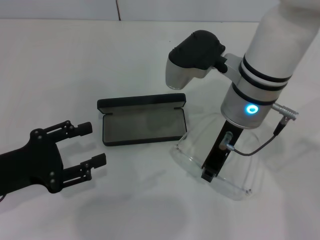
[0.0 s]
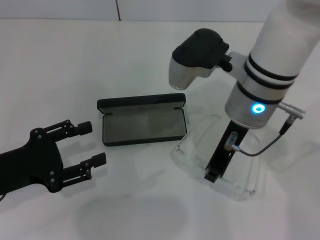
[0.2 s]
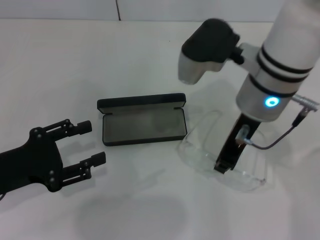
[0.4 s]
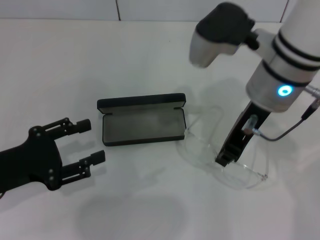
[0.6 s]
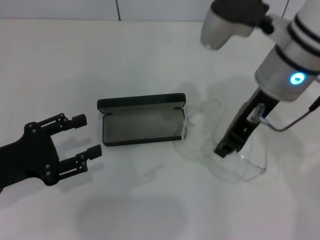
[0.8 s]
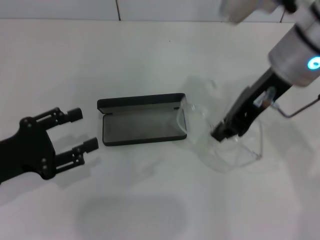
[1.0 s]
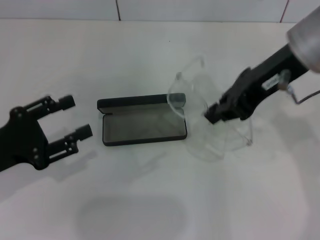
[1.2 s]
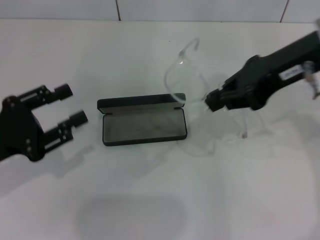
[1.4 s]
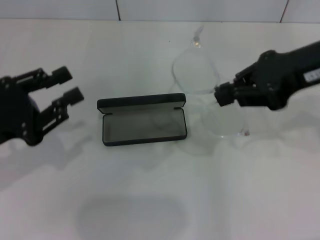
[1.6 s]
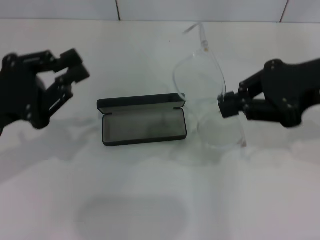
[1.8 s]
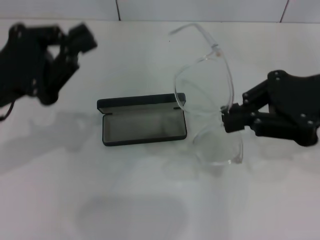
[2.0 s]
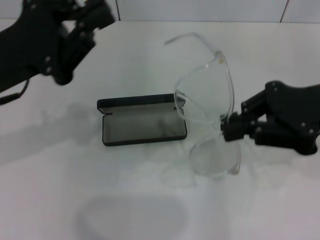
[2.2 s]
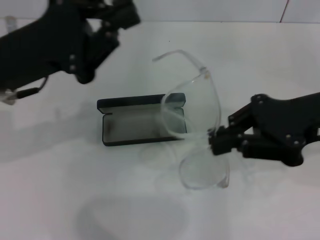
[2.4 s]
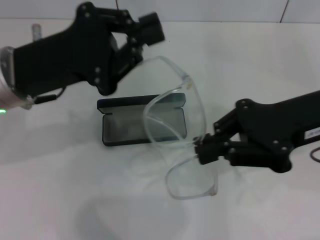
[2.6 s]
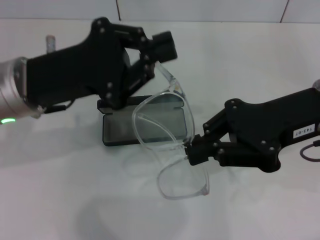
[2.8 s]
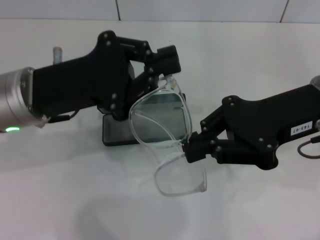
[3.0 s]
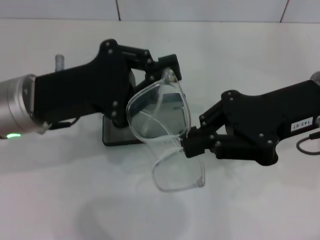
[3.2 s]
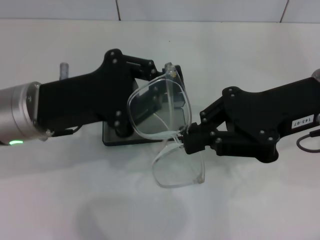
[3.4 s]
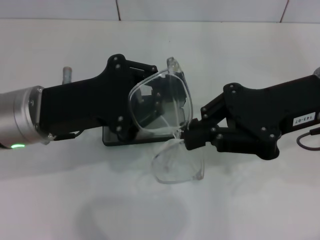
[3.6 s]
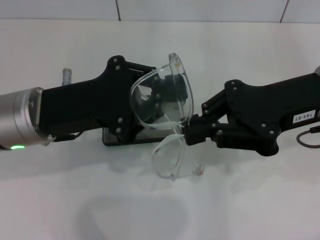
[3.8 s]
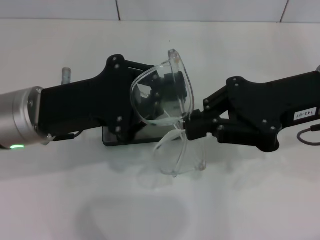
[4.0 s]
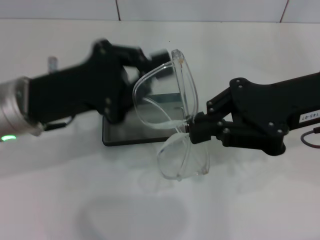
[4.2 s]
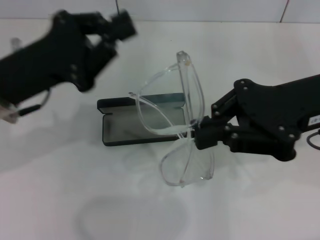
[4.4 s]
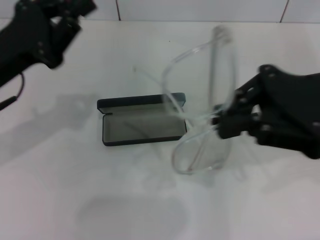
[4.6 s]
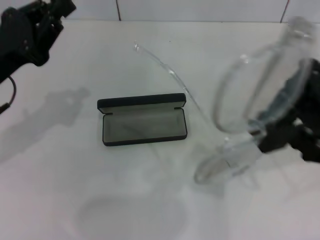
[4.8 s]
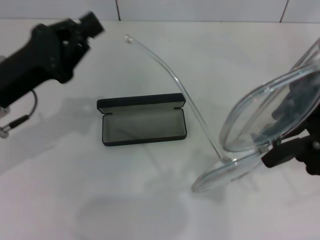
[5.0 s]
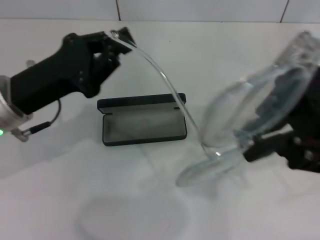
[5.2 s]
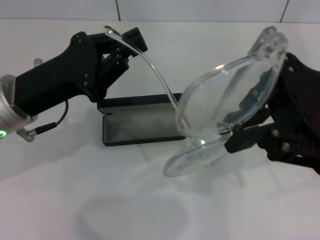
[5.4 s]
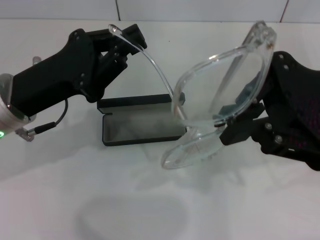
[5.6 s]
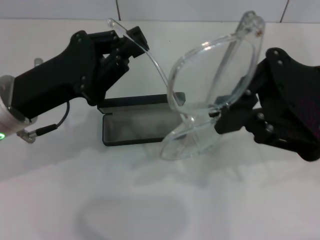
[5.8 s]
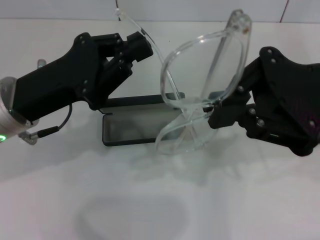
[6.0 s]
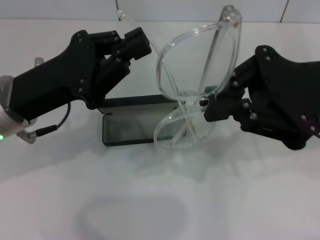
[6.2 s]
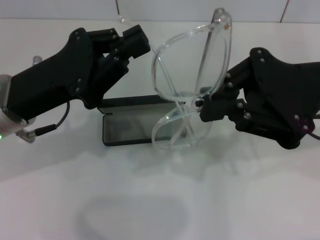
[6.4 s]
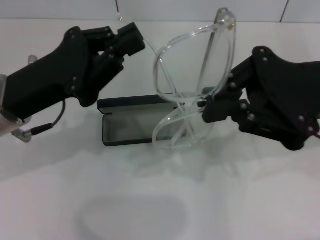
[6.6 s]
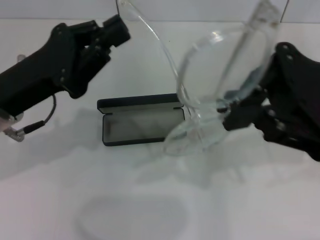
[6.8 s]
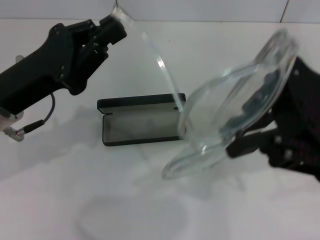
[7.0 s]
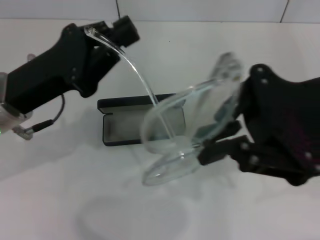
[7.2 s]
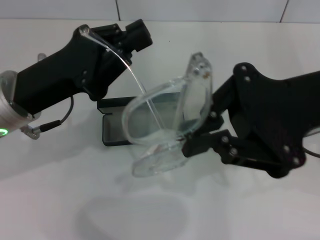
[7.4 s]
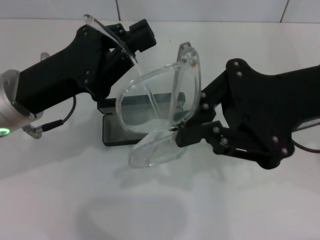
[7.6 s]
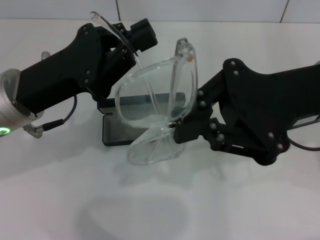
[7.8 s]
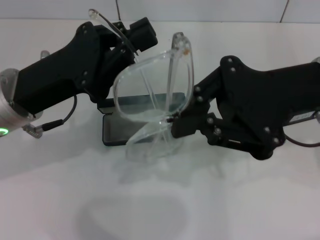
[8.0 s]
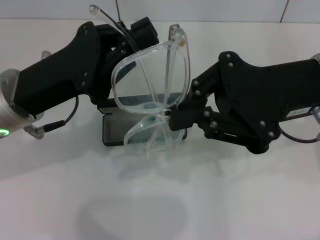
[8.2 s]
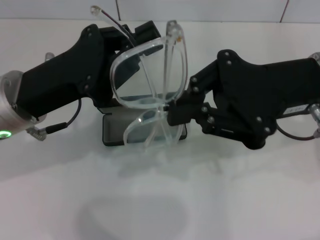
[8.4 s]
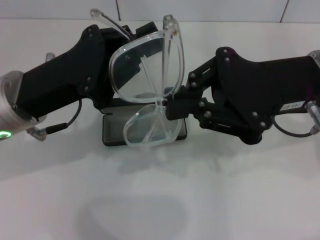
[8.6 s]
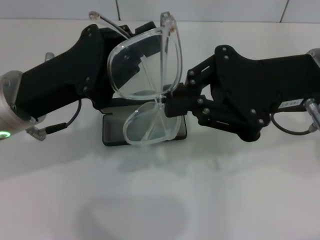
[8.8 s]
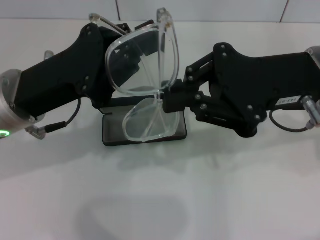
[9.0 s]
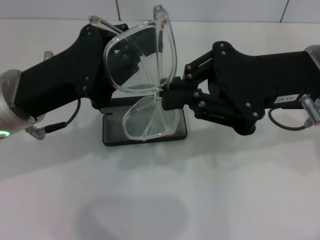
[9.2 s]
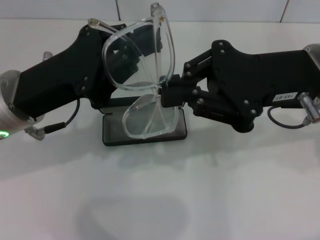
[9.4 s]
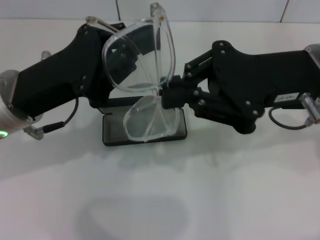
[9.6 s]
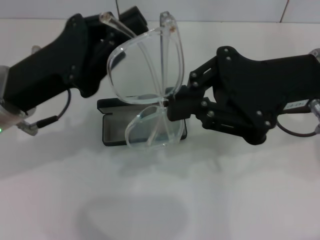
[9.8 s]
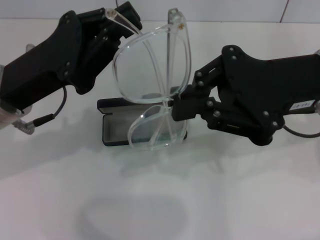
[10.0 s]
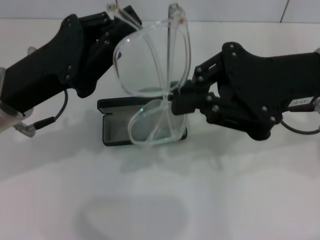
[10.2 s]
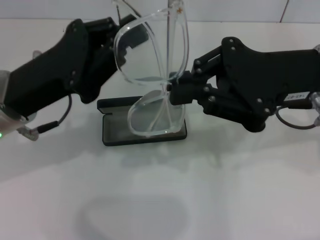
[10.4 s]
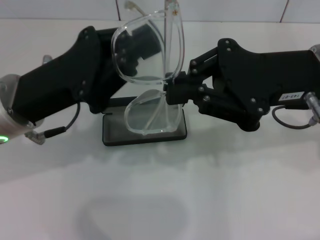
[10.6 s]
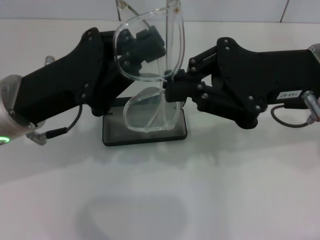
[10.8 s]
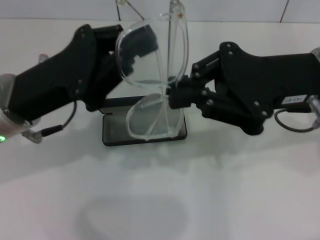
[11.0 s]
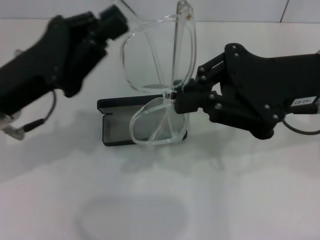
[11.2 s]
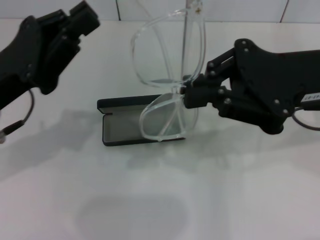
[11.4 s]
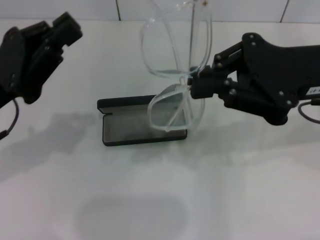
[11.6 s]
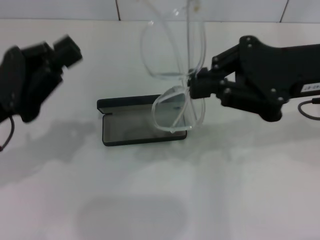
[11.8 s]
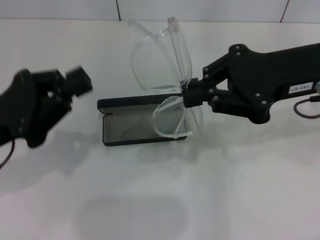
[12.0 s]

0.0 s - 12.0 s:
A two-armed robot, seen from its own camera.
0.0 s - 1.6 s: The right gripper shifts about 15 cm to the right and upward.
1.6 s - 3.0 s: The right gripper heads downward, covering approximately 5 cm. The left gripper heads to the right and forward, covering some 10 cm, and closes its fingers.
6.0 s - 7.6 s: The grippers stay close to where they were, moving slightly.
9.0 s - 10.4 s: Both grippers stay put.
10.4 s - 12.0 s: The left gripper goes roughly 5 cm to the left.

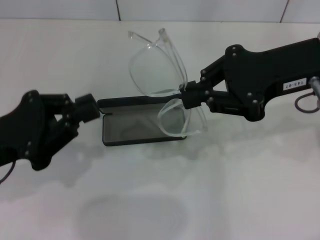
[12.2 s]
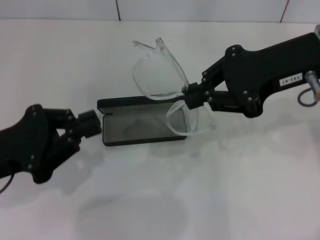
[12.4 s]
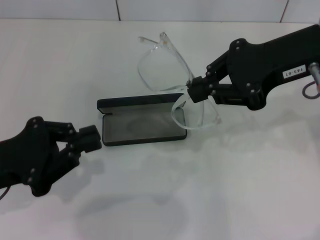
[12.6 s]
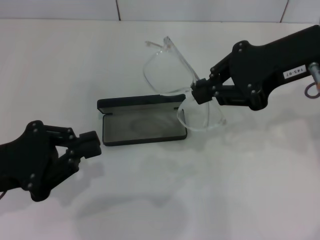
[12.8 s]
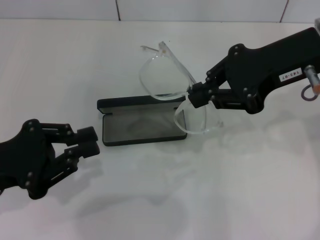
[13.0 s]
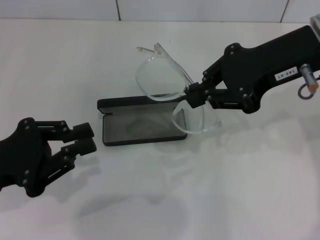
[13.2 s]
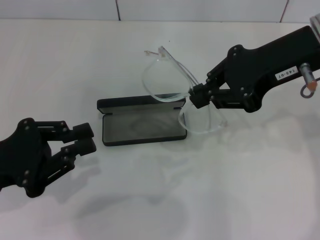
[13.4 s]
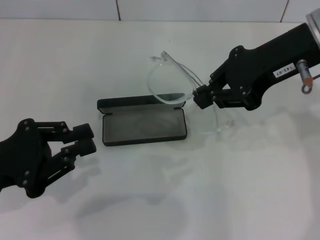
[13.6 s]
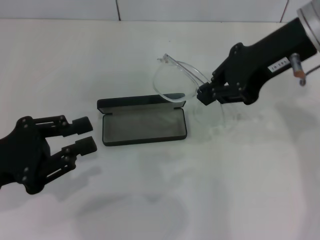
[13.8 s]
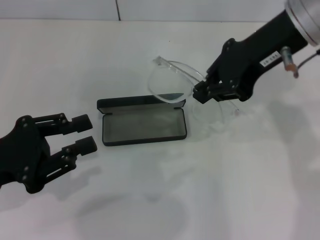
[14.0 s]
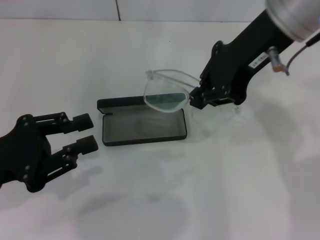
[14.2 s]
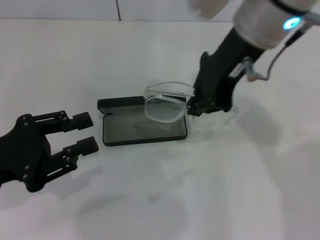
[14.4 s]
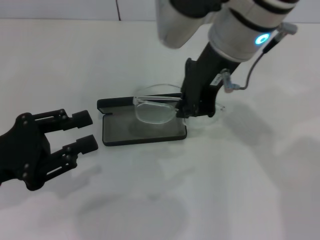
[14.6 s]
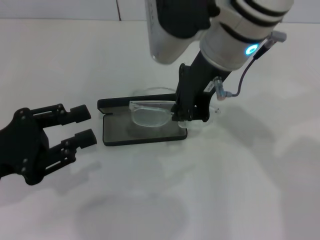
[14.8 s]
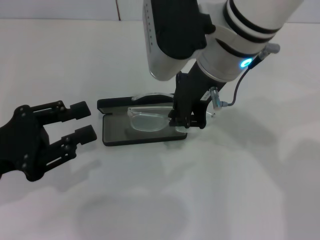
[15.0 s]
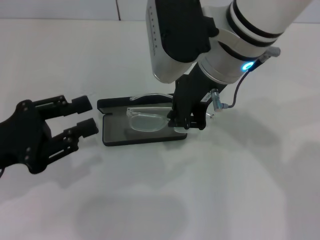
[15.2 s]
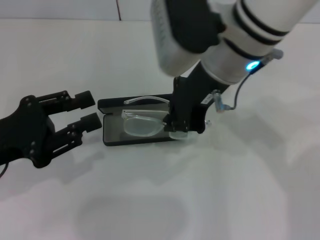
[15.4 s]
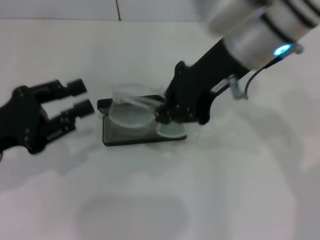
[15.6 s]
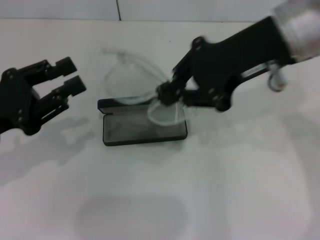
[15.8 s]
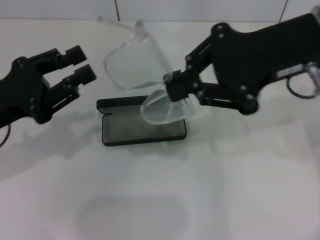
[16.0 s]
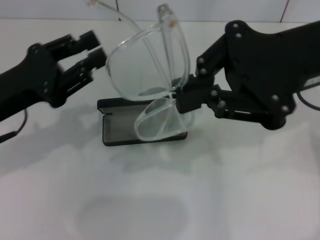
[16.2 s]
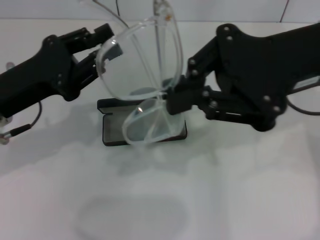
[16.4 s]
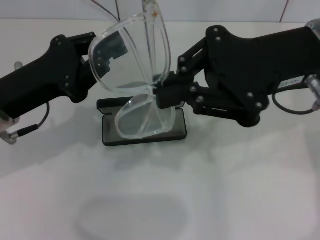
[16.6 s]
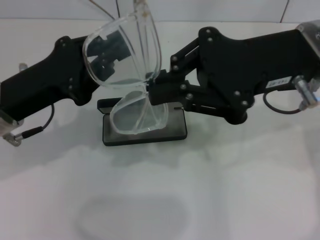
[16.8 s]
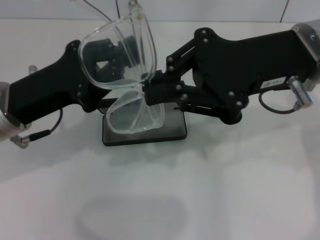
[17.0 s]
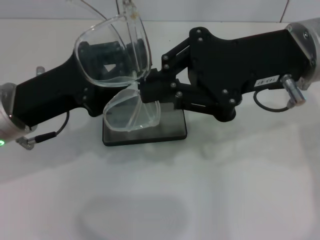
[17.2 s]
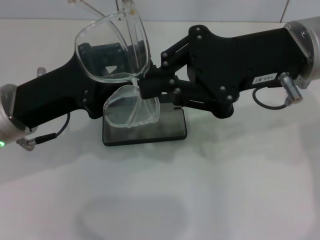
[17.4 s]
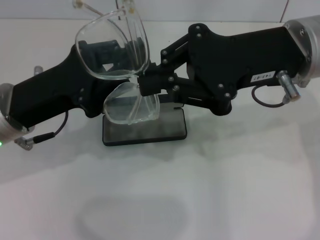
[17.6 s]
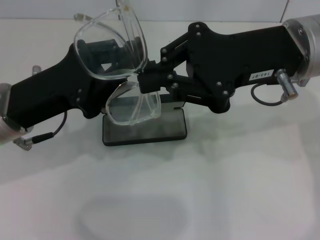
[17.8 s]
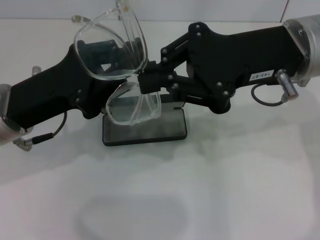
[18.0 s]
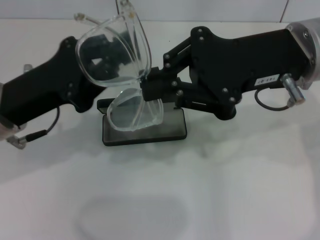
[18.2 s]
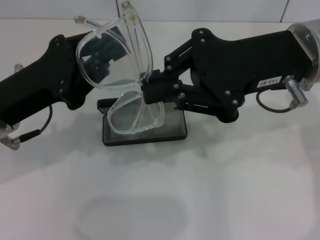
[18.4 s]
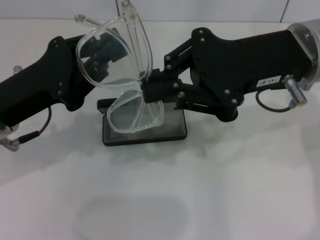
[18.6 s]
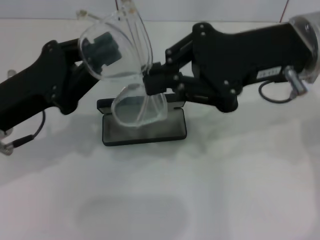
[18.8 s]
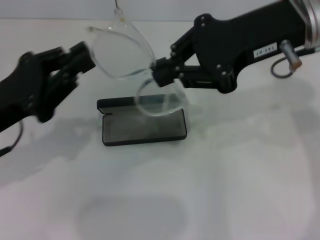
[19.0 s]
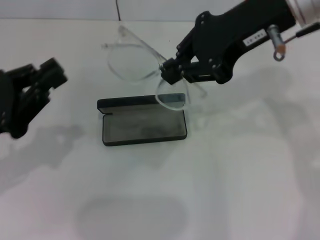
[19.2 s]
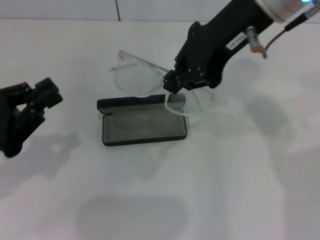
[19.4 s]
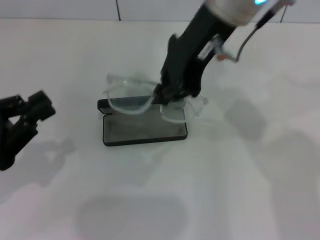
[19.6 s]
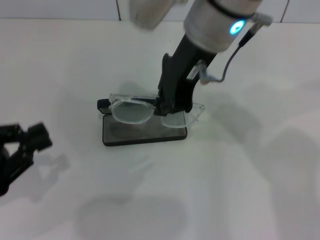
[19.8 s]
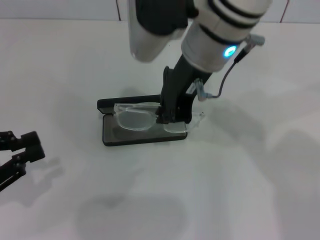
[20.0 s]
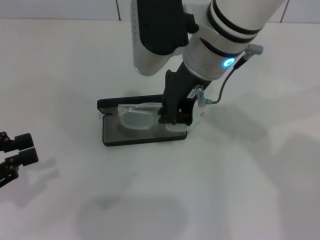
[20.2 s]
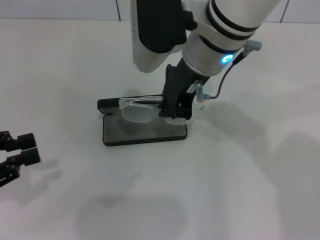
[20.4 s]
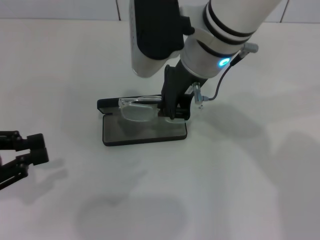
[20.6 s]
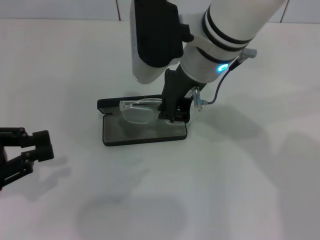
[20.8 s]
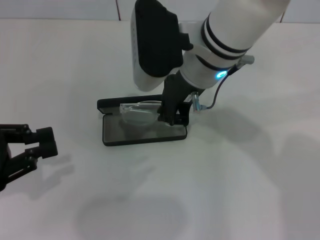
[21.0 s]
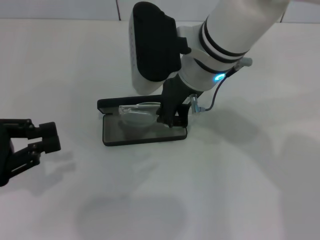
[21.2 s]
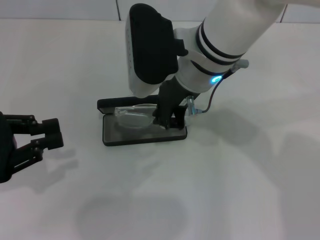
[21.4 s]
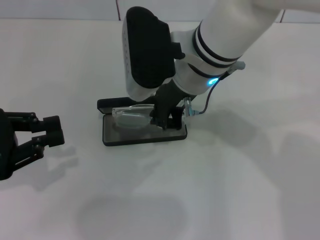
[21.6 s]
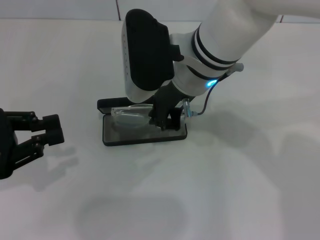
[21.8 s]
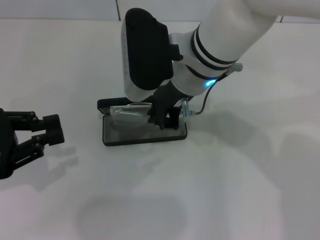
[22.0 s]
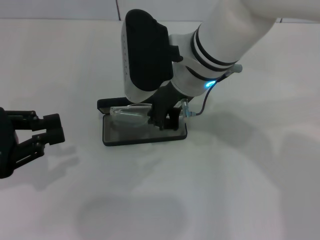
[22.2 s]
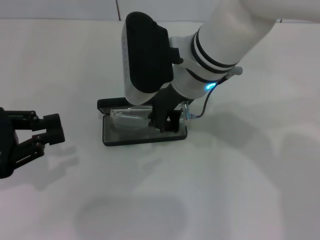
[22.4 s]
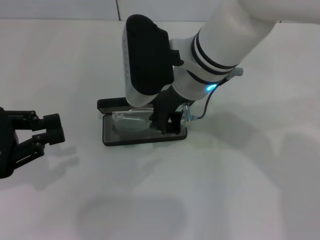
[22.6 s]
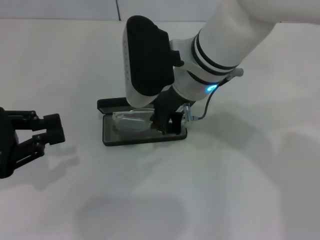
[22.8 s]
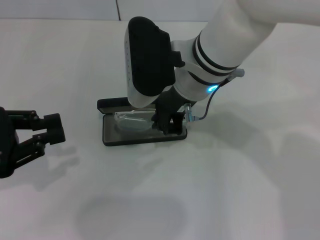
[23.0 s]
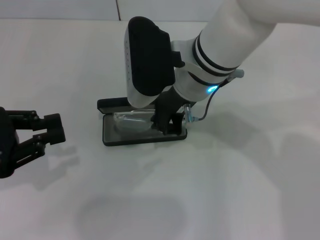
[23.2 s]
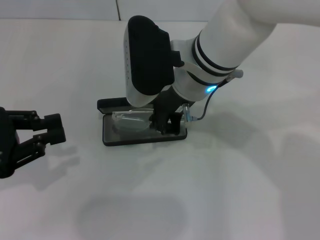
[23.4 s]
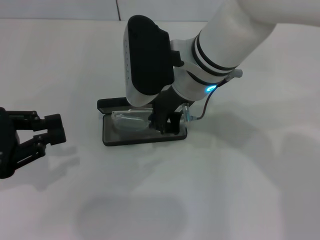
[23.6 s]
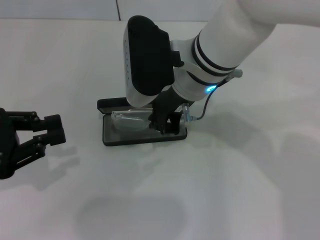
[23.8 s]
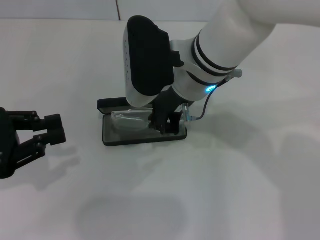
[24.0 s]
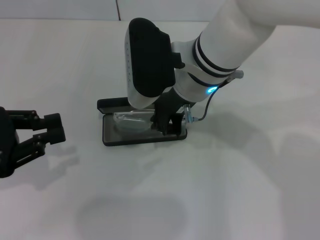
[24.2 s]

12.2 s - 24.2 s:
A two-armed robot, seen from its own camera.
Step, 12.2 s - 18.2 s: Lift the glasses with your right hand.
12.2 s - 13.8 s: The right gripper changes place by some 5 cm.
13.8 s - 15.2 s: The right gripper heads to the left, covering roughly 10 cm.
15.2 s - 16.6 s: The left gripper travels forward by roughly 5 cm; the right gripper heads to the right, covering approximately 10 cm.
16.6 s - 18.2 s: The grippers make only small movements.
18.2 s - 19.8 s: The right gripper moves to the left, some 10 cm; the left gripper heads to the left and backward, covering approximately 15 cm.
19.8 s - 21.2 s: The right gripper travels downward by about 5 cm.
21.2 s - 22.6 s: The grippers stay close to where they were, moving slightly.
22.6 s - 24.2 s: The two grippers keep their place.
